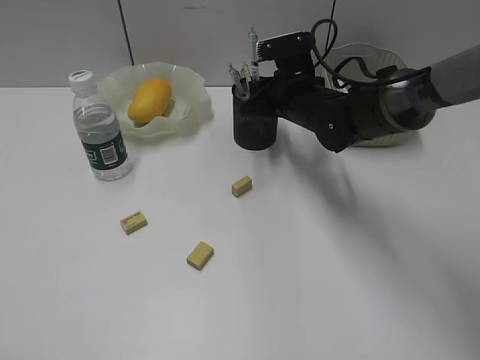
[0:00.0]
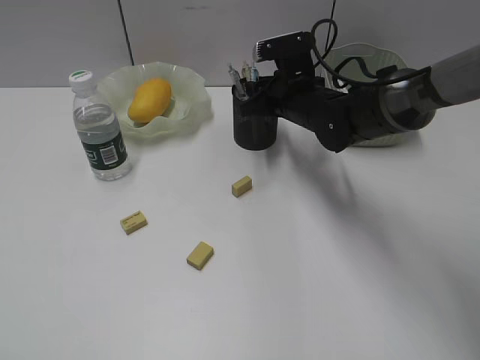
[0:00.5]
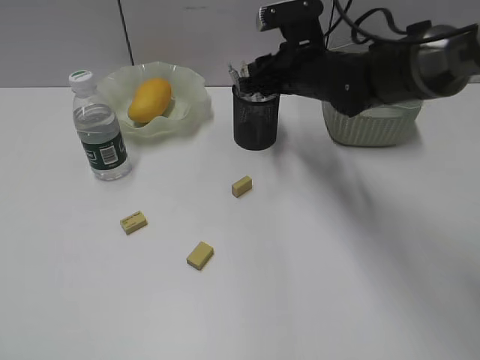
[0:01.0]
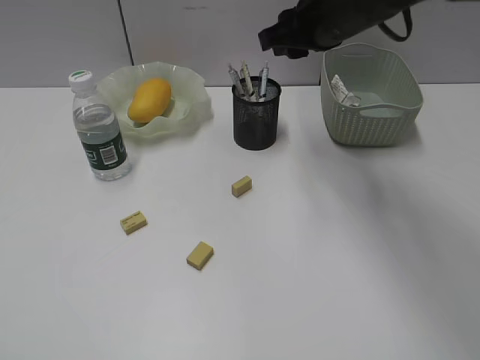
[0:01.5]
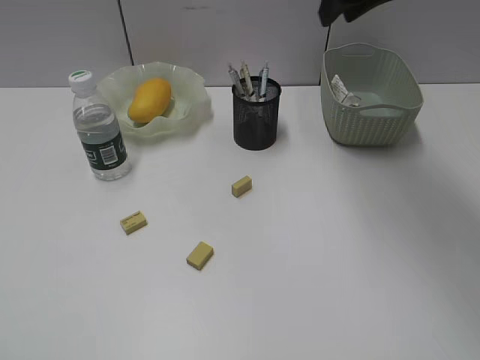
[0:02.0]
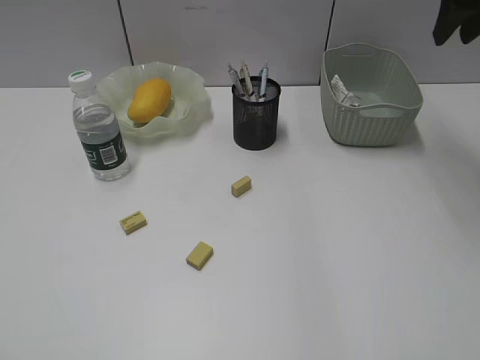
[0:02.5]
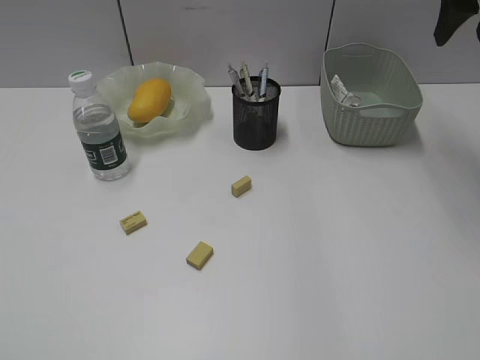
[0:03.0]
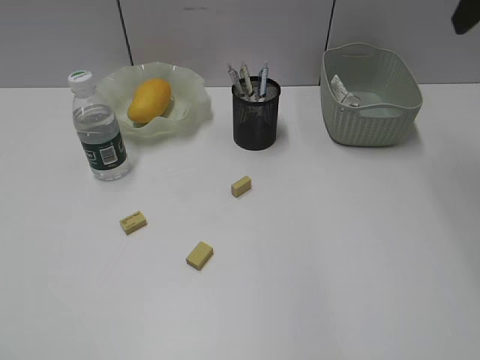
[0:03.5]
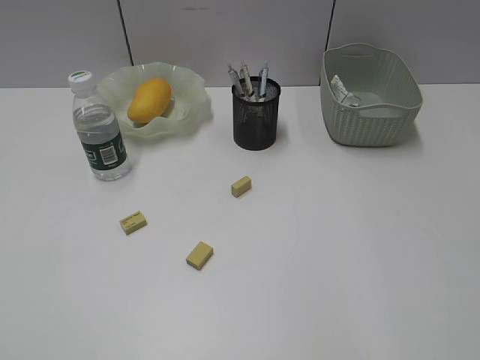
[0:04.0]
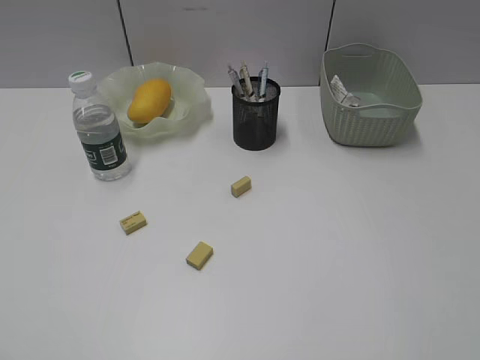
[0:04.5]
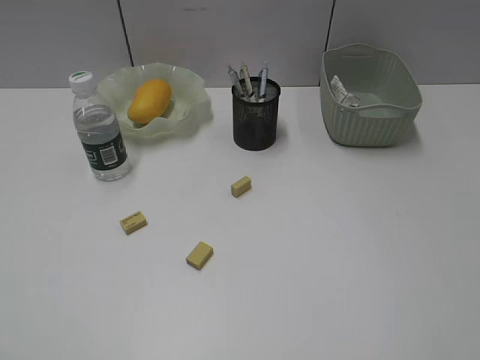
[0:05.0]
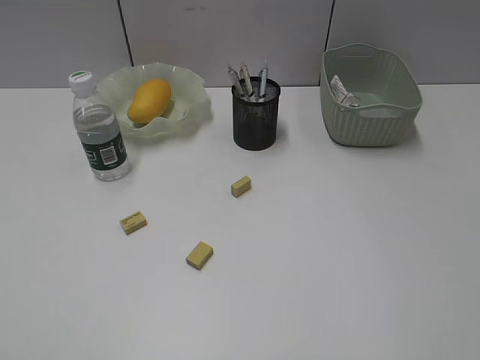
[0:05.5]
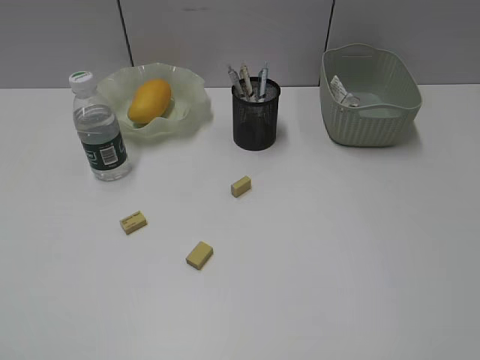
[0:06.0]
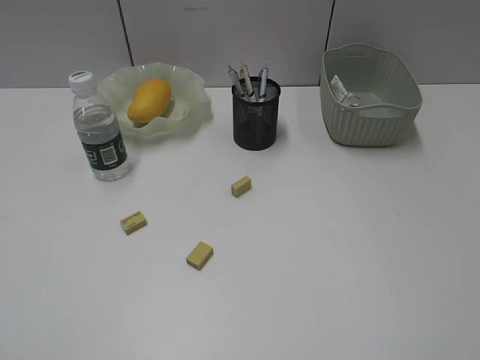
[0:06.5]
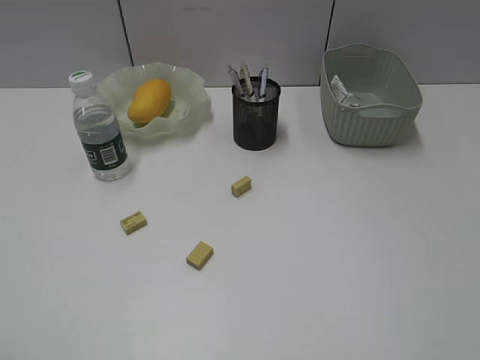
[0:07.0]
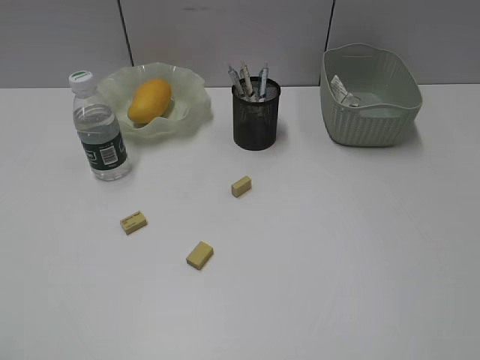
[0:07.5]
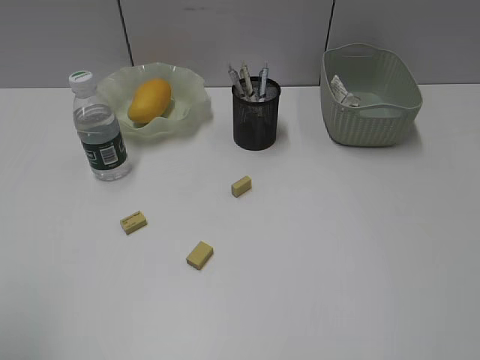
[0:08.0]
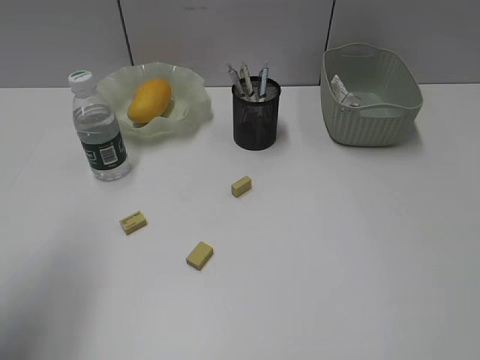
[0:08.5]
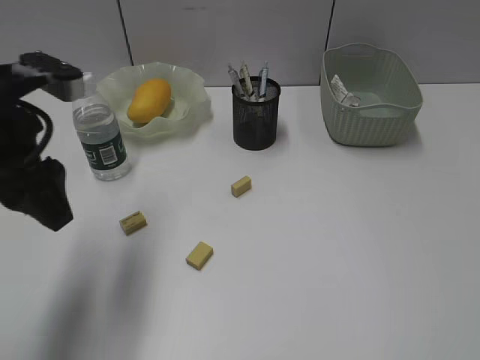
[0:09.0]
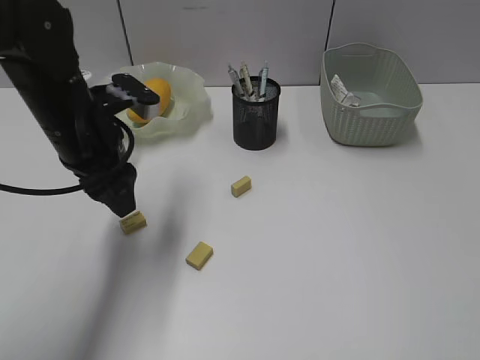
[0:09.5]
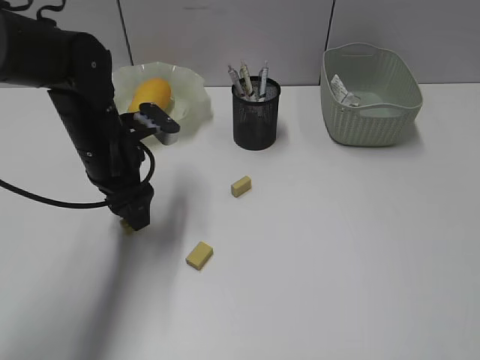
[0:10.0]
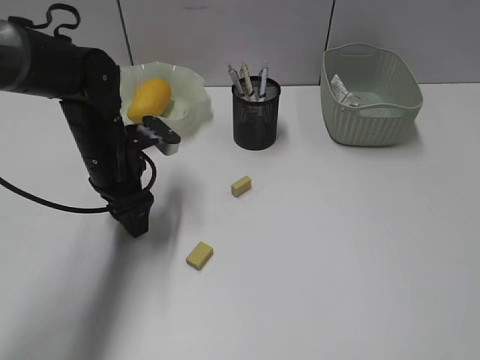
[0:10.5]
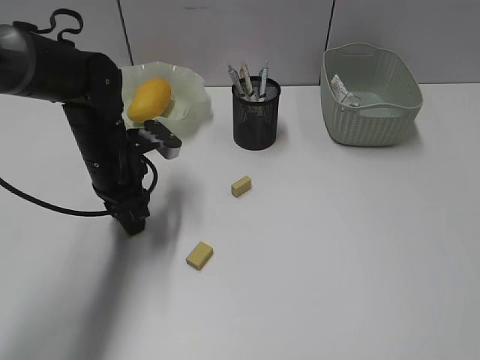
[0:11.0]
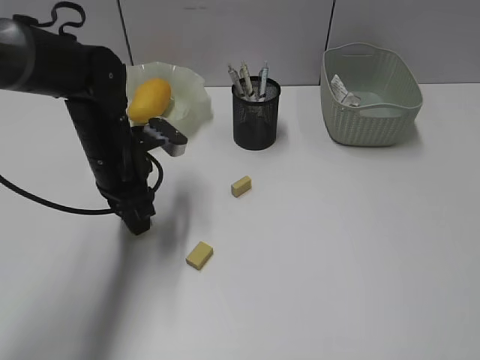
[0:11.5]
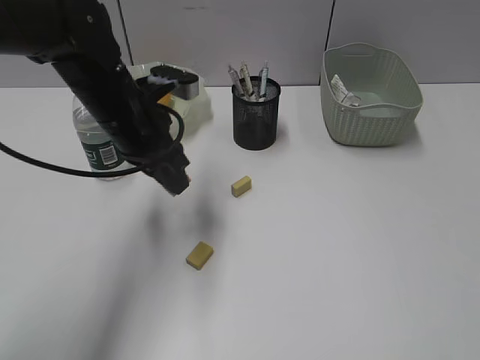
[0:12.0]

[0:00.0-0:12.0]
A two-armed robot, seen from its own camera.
Step, 0:01.5 to 0:11.0: Grasp the eraser with left gripper.
0:00.0 to 0:02.0: The right gripper heads upward, covering roughly 20 cm.
0:02.0 to 0:04.0: The right gripper shifts about 25 cm backward and to the right, and opens its fingers.
0:08.0 to 0:10.0: The left gripper shifts about 35 cm forward, downward and to the right.
0:10.0 to 0:12.0: The left gripper ends up roughly 5 cm from where it was, and closes up.

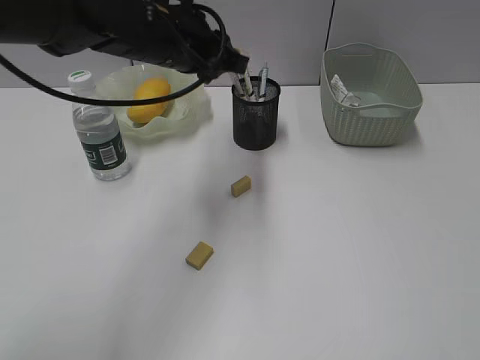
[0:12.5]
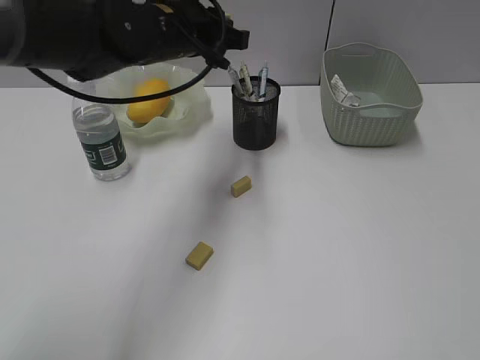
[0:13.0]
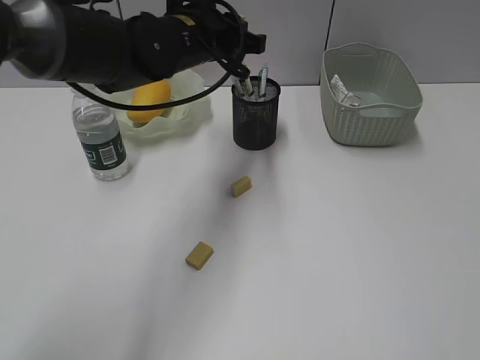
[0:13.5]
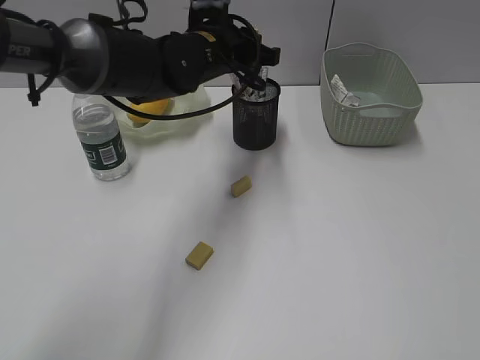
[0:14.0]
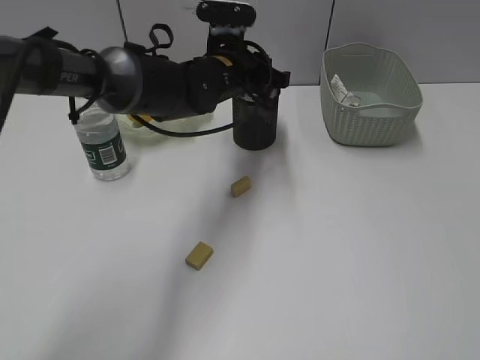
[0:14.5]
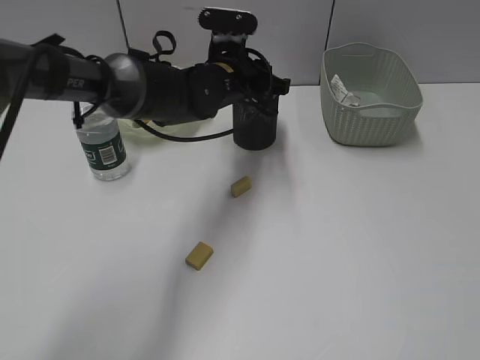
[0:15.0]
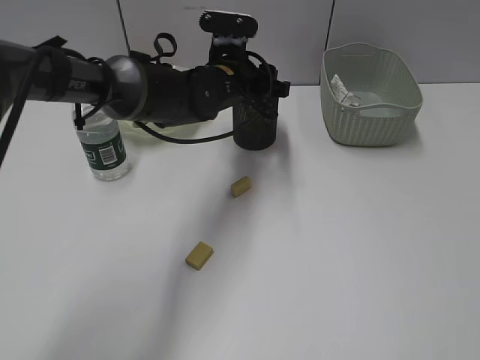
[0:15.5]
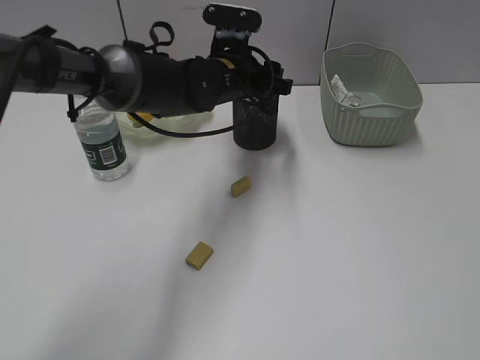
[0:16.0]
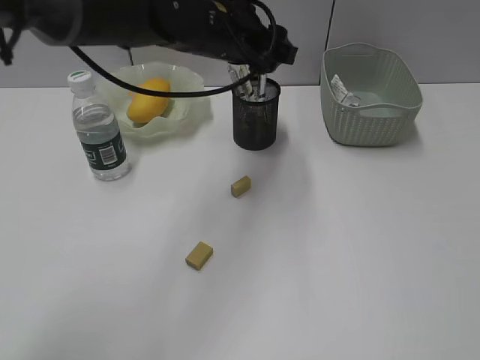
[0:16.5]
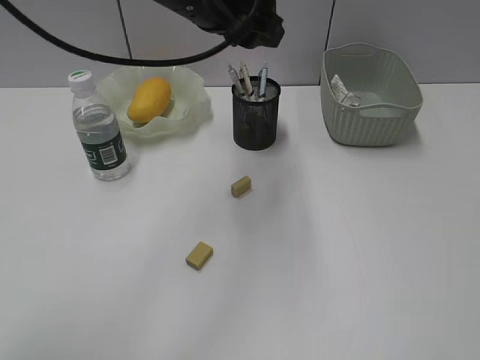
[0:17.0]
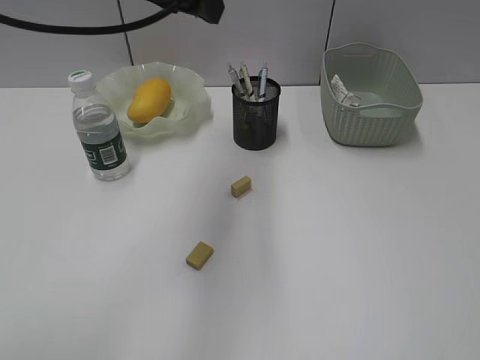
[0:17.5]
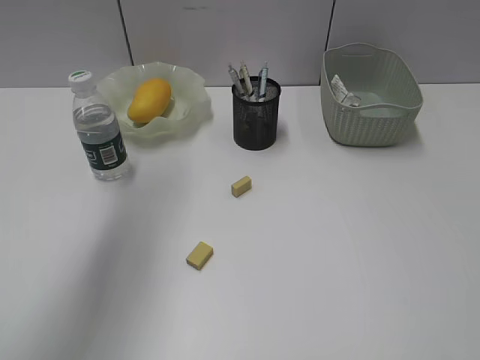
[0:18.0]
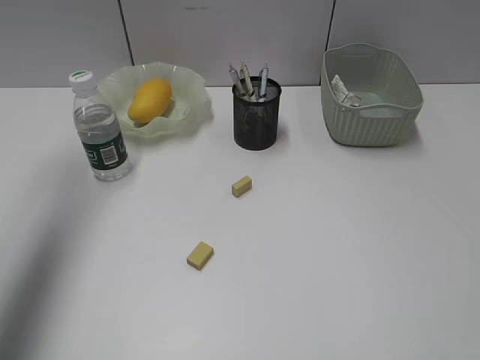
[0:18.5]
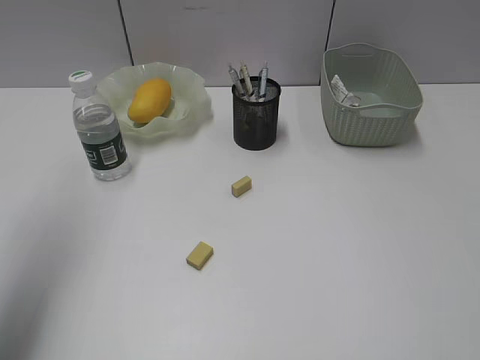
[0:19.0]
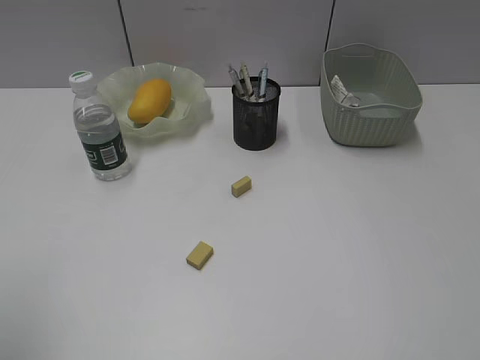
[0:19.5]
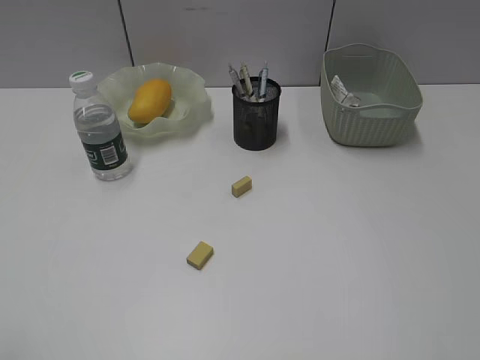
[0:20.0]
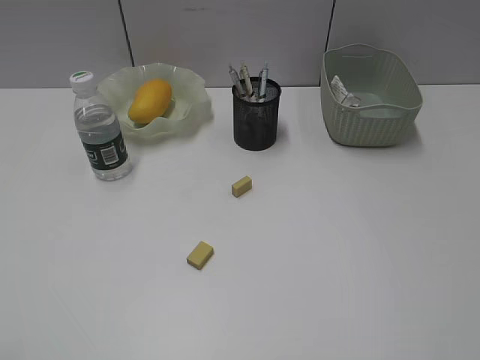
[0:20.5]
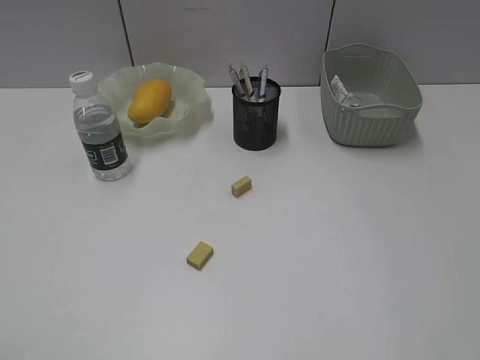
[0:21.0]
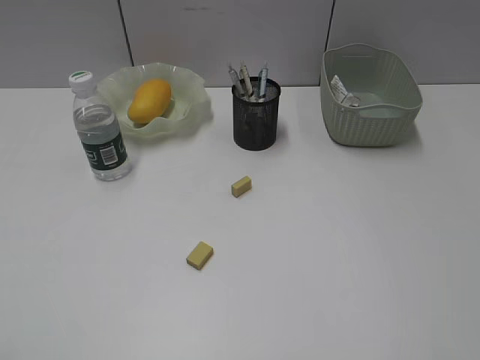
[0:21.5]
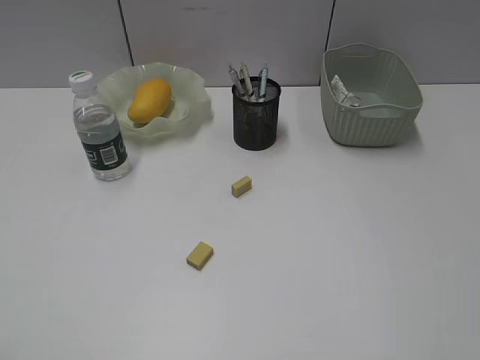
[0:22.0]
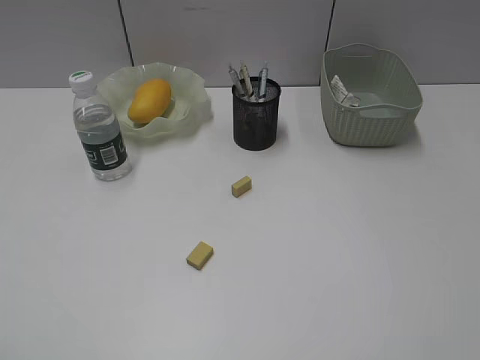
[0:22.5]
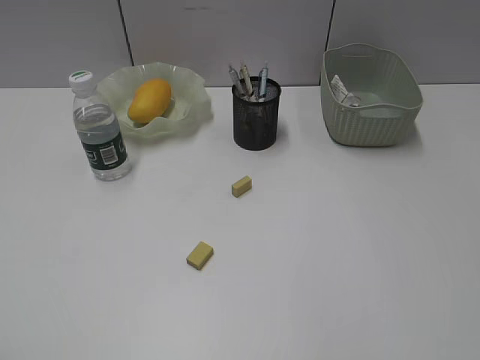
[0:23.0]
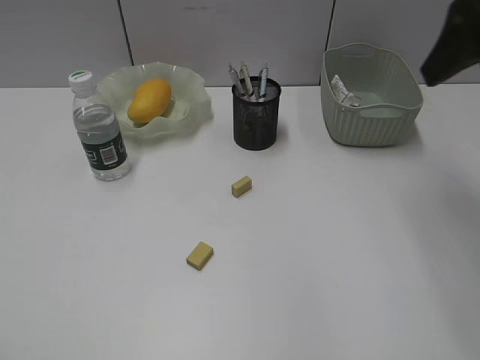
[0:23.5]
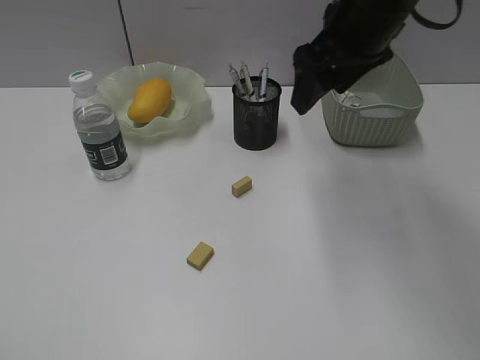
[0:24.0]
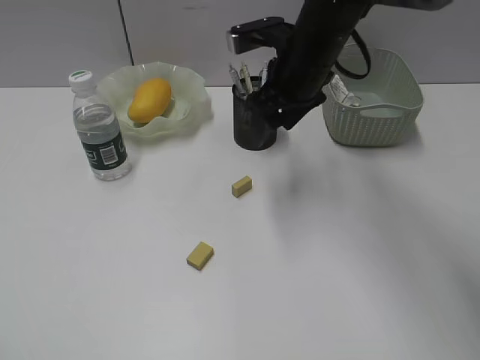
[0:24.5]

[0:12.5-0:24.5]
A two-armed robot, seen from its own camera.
Step, 0:12.5 to 0:15.5: Place the eraser in pen holder with left gripper.
0:12.5 to 0:14.5: The left gripper travels downward, forward and to the right by about 10 cm.
0:14.5 to 0:16.5: The left gripper moves upward, roughly 5 cm, and opens up.
0:16.5 to 0:18.5: The left gripper shifts approximately 30 cm to the left and upward.
0:18.5 to 0:20.5: The left gripper travels backward by about 35 cm.
0:22.5 to 0:24.5: The right gripper heads forward and to the left, covering some 40 cm.

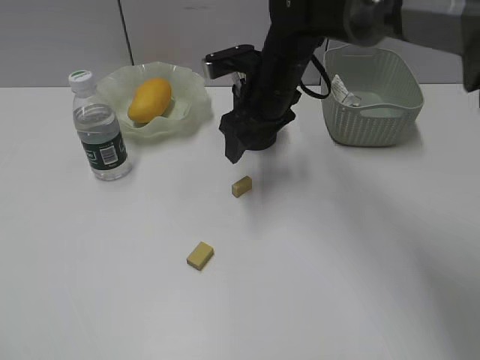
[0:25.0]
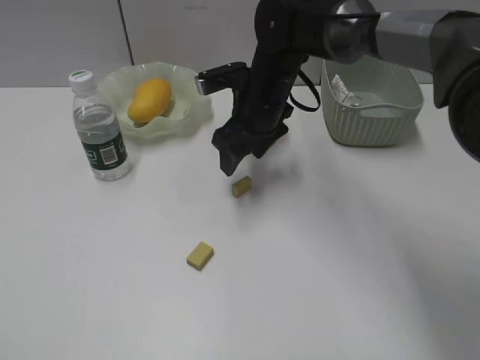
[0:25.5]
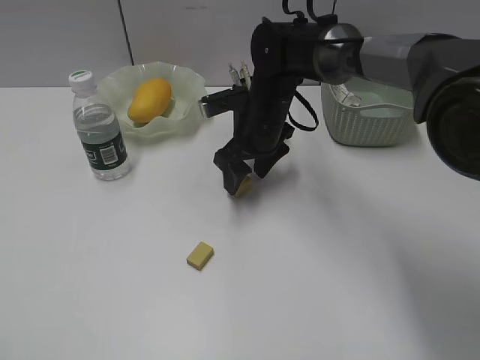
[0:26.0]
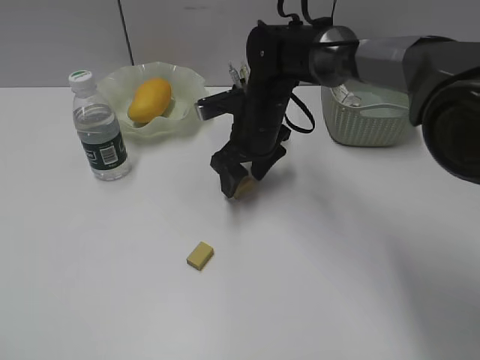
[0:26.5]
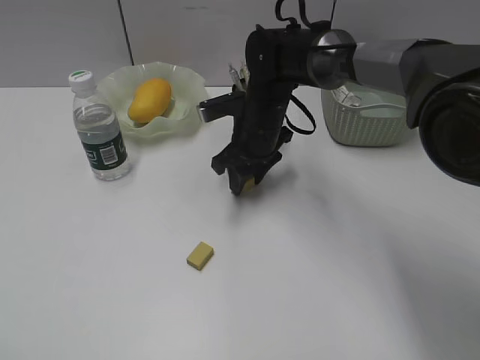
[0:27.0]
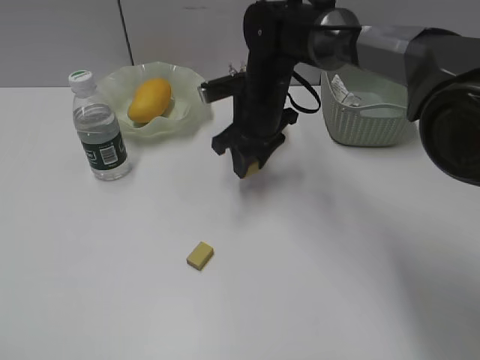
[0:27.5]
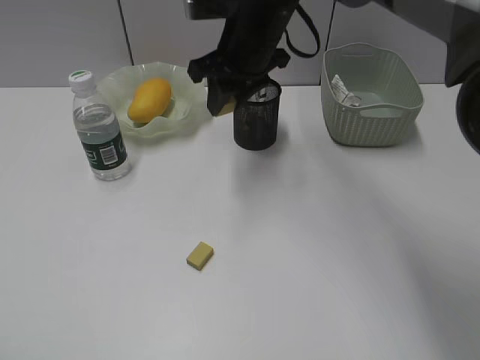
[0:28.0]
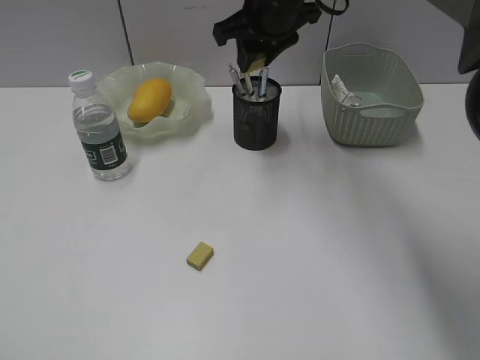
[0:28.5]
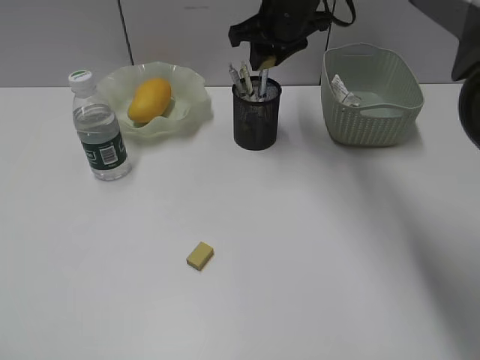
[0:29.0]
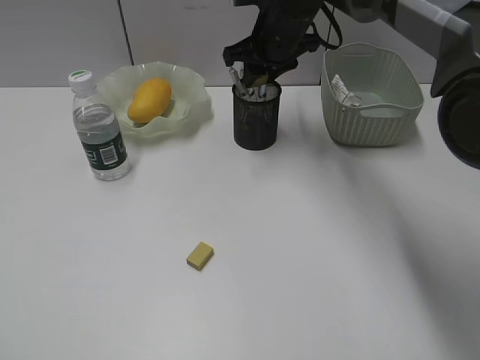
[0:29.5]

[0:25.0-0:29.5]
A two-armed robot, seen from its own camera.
Step, 0:25.0 to 0:27.0: Grasp the eraser with right gripper.
0:25.0 to 0:27.0: The right gripper moves downward, roughly 5 cm, and closes.
0:27.0 to 0:29.5: The right gripper shifts approximately 10 cm upward and forward.
